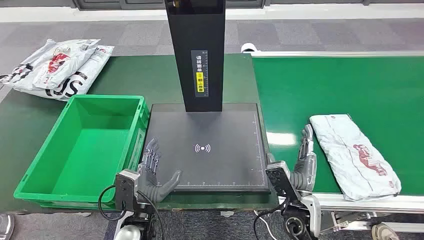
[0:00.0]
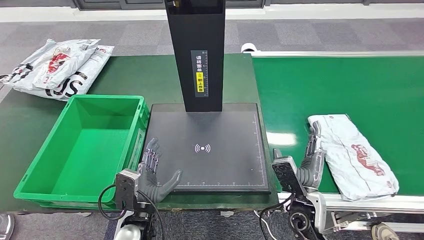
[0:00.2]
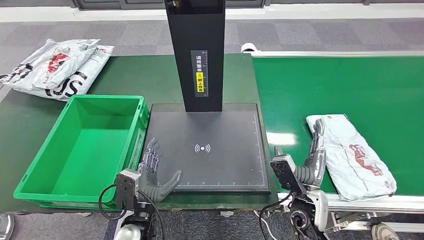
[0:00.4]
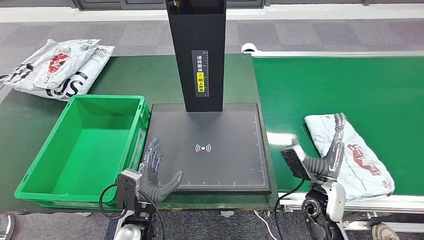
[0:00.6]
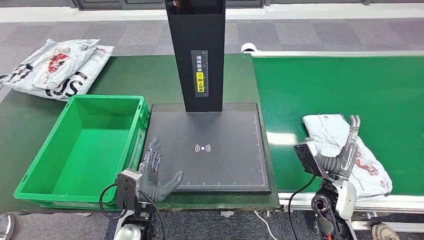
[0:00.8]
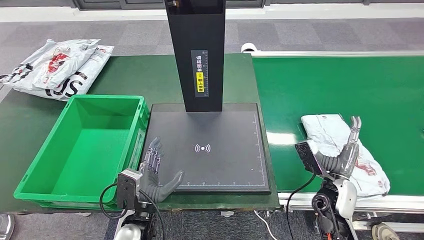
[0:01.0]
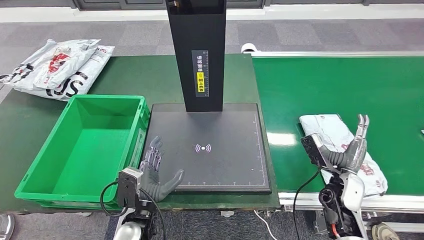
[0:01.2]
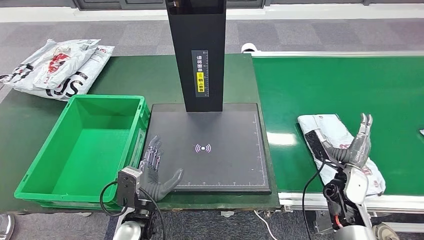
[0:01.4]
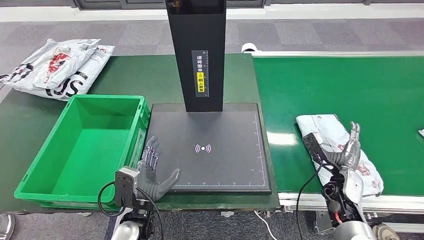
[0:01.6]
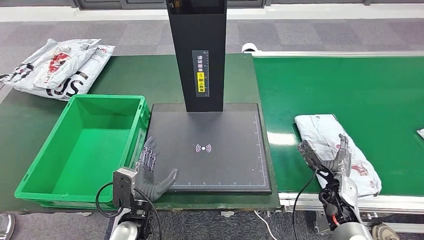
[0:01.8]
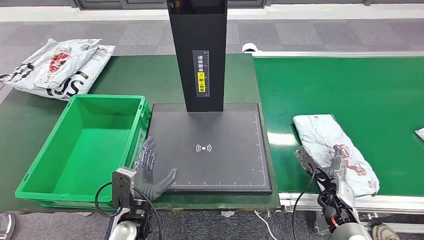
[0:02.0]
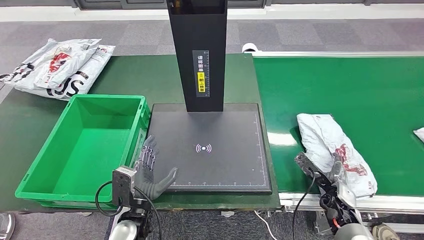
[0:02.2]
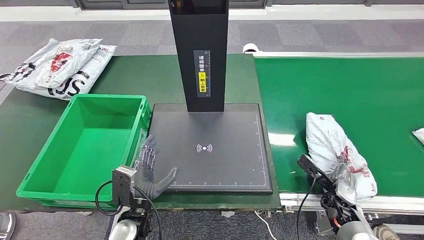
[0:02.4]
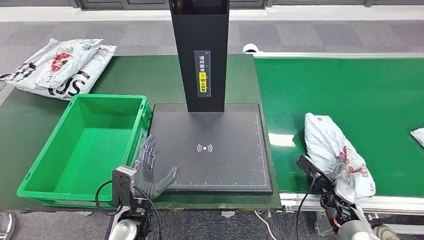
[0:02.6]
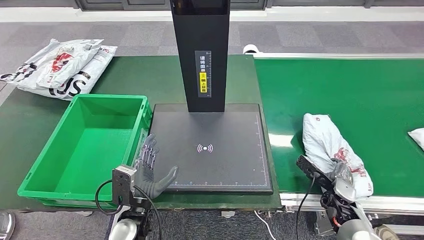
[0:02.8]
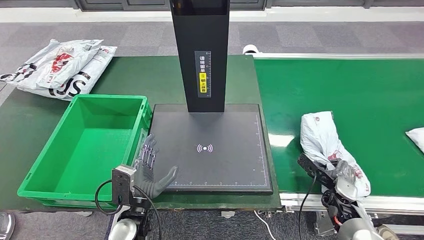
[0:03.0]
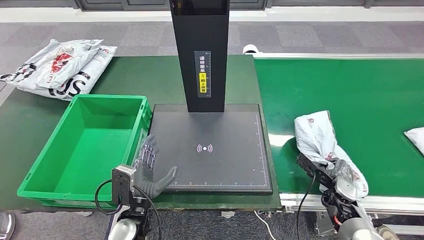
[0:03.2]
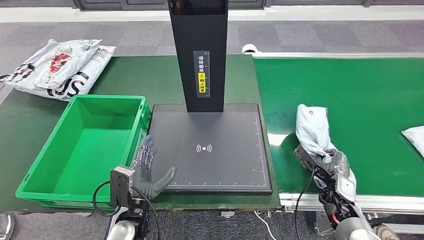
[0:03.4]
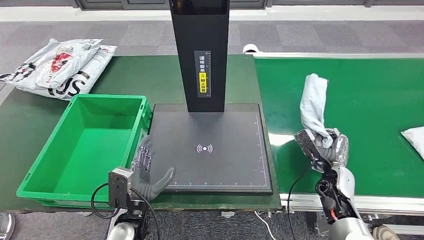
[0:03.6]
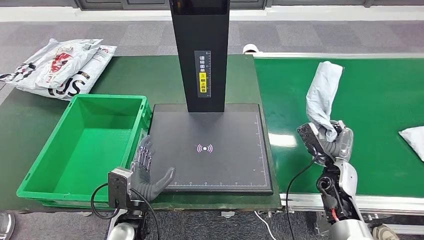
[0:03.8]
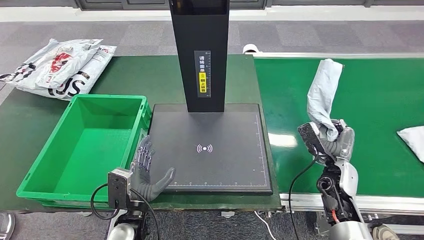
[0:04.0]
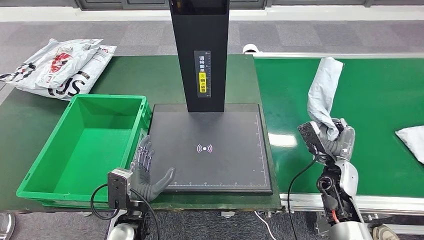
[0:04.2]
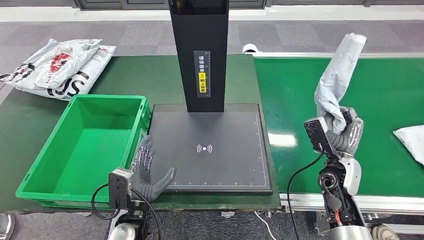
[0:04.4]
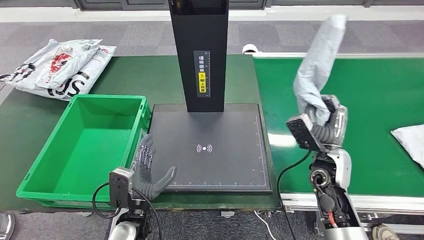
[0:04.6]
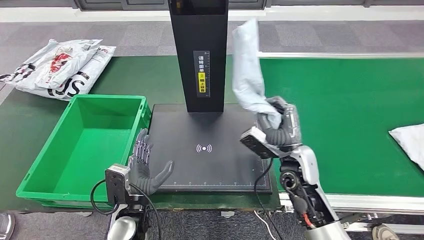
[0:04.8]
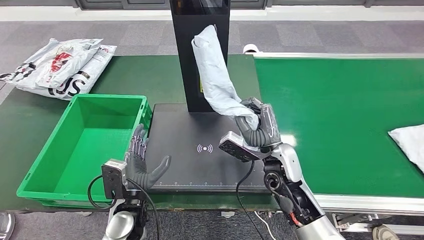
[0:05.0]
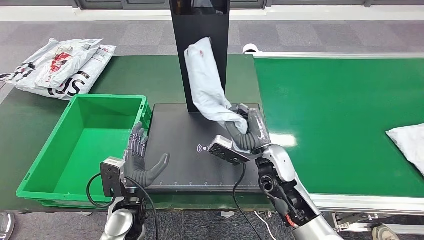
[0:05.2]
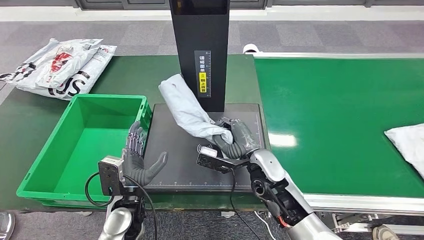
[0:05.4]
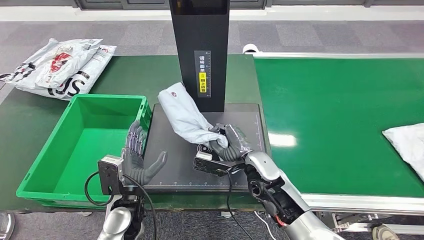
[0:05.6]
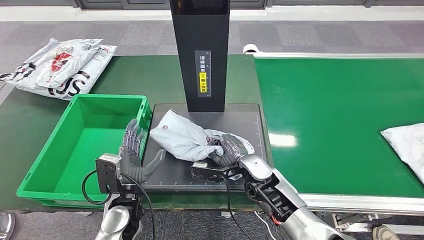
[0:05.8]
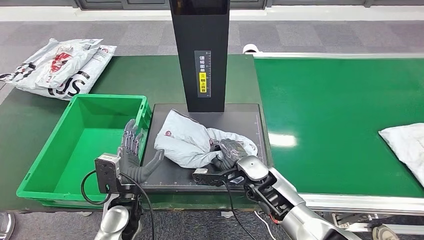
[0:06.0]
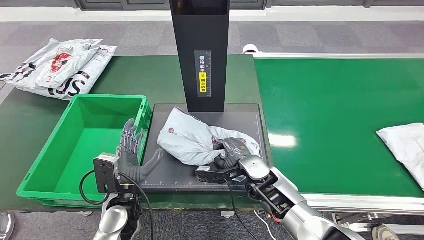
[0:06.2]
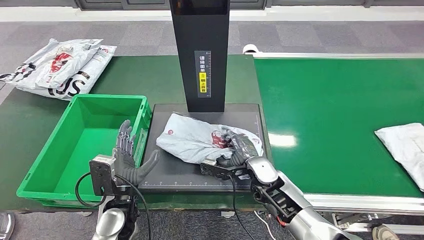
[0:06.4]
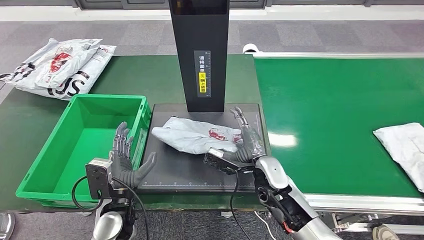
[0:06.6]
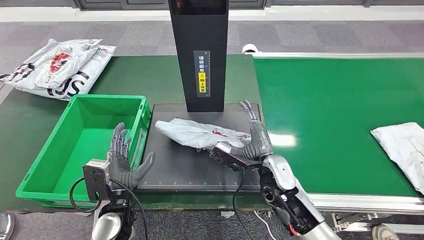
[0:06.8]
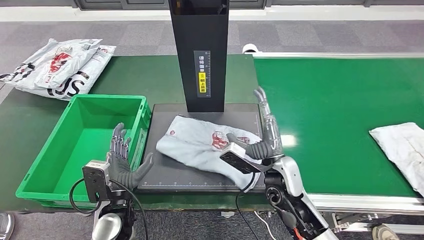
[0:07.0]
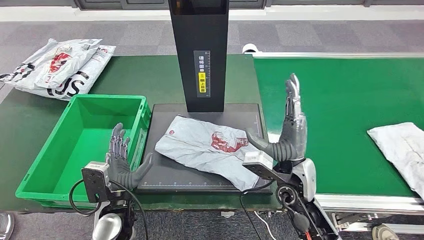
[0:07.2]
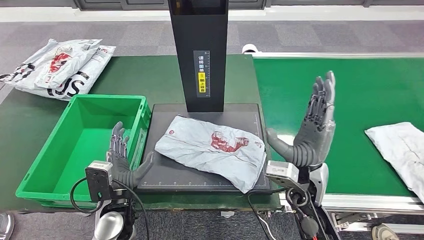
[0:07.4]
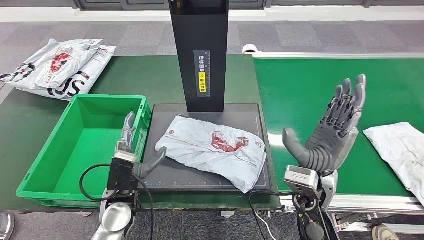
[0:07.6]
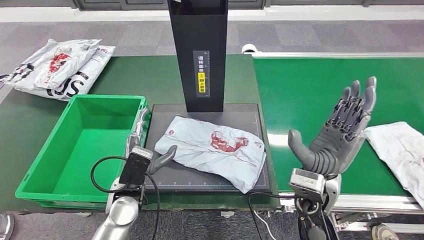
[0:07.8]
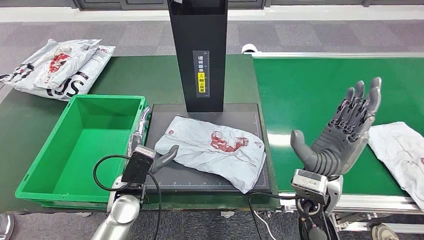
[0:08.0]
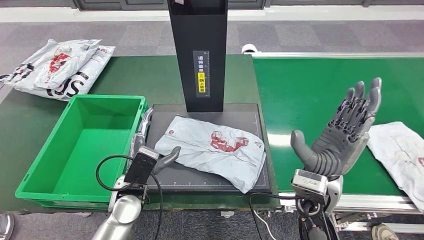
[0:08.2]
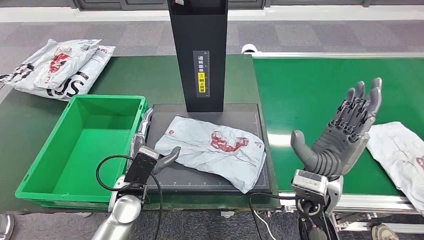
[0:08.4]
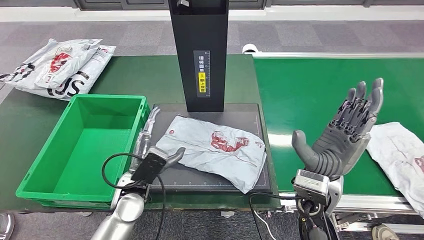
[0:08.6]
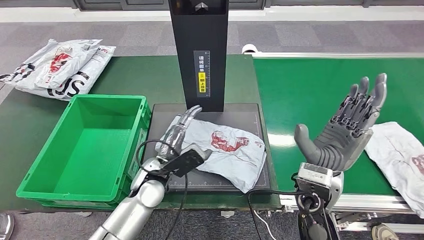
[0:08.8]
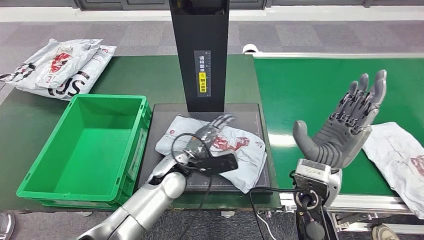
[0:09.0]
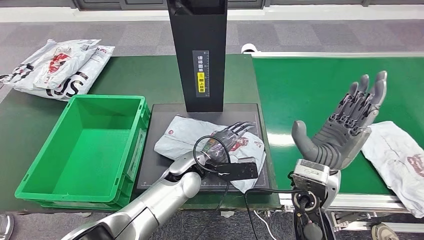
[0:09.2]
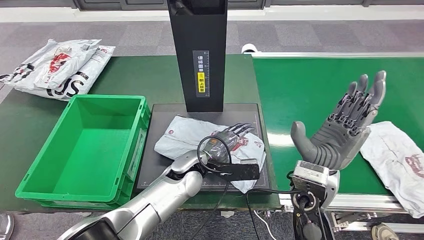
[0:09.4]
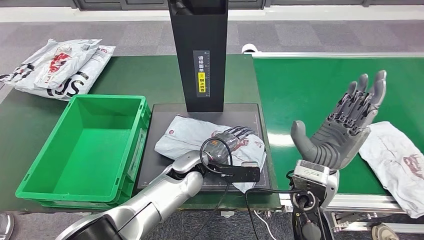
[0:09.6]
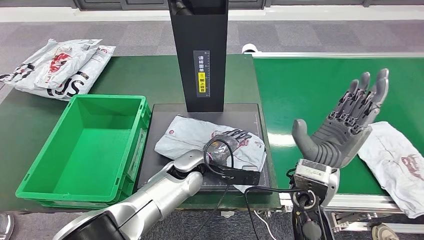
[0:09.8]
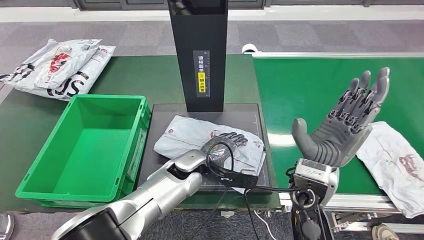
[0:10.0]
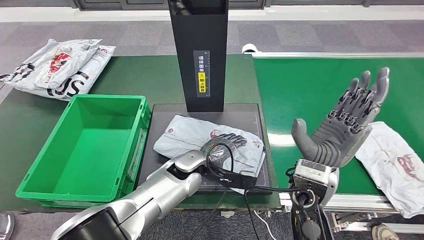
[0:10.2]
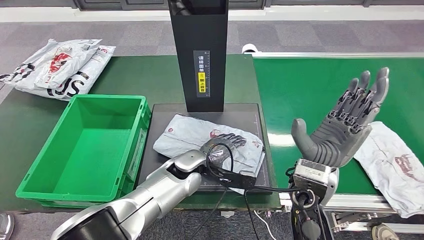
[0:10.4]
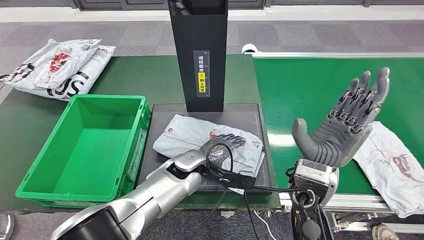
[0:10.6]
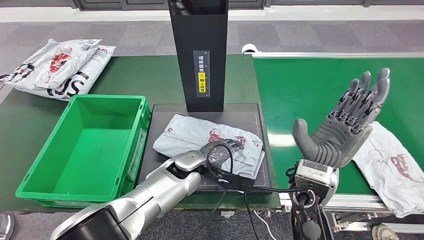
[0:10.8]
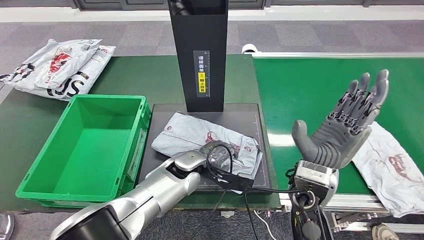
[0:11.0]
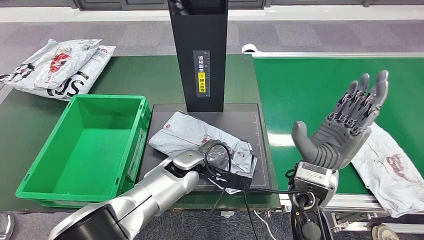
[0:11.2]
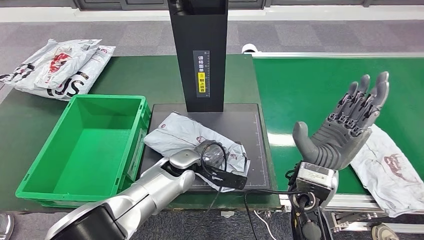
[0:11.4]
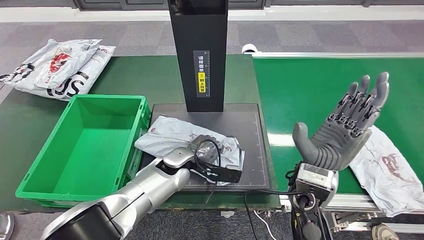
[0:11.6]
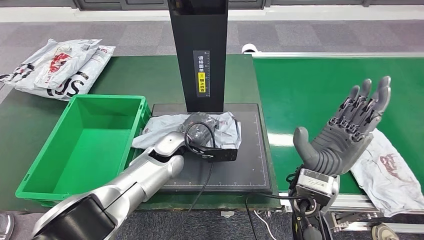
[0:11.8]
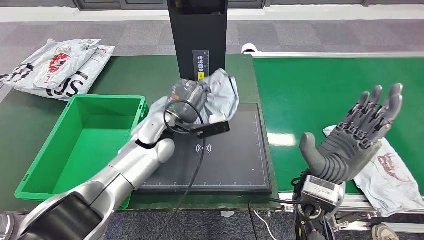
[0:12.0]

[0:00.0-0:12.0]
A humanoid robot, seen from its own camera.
Step, 0:00.0 to 0:03.8: Take the parcel off the conveyor belt.
Step, 0:04.0 to 0:07.4: Place the parcel onto the inbound machine.
0:03.0 to 0:04.4: The right hand is displaced upward by some 10 cm.
0:06.0 to 0:07.6: The right hand shifts approximately 15 cm upward, to the right and backward.
0:07.6 to 0:09.0: The left hand travels to the right and forward by approximately 15 cm.

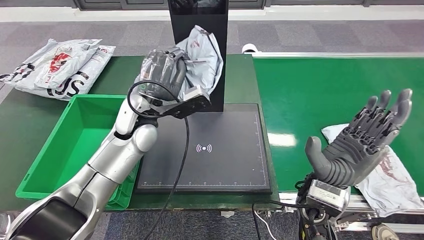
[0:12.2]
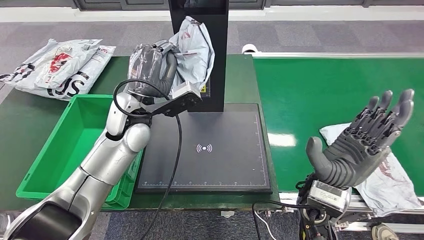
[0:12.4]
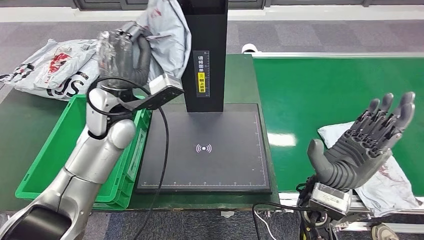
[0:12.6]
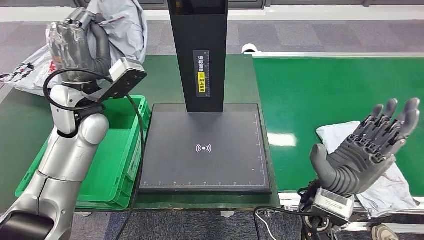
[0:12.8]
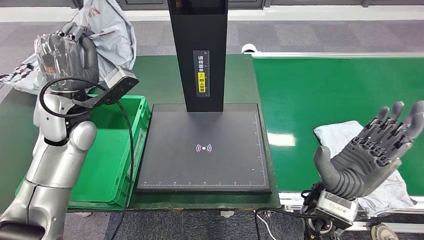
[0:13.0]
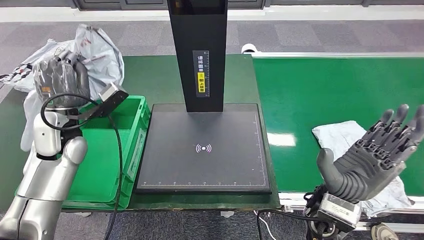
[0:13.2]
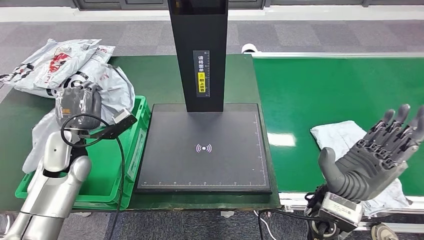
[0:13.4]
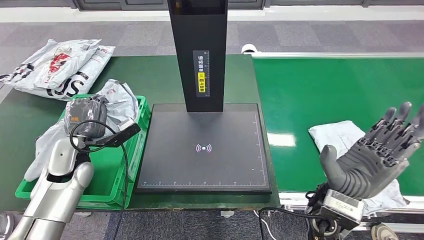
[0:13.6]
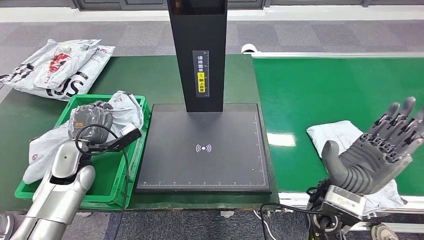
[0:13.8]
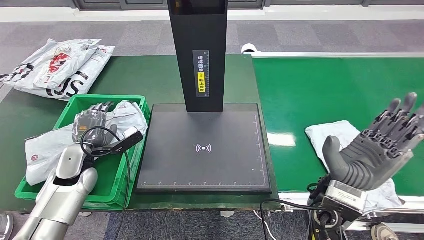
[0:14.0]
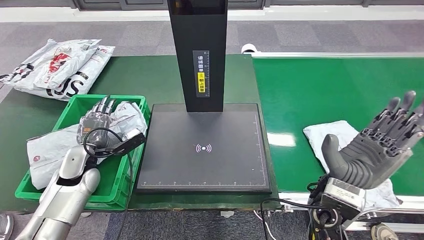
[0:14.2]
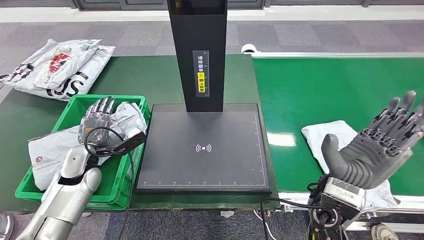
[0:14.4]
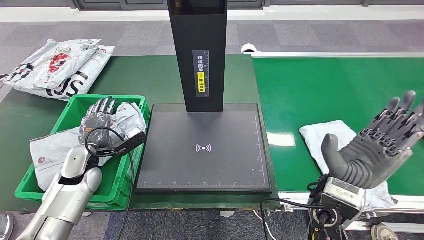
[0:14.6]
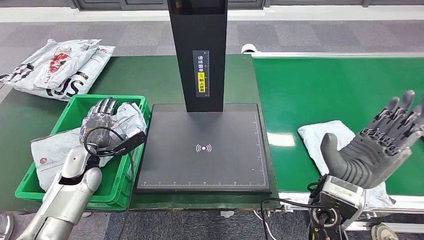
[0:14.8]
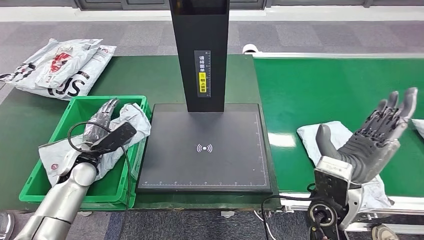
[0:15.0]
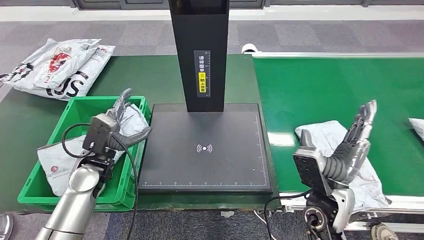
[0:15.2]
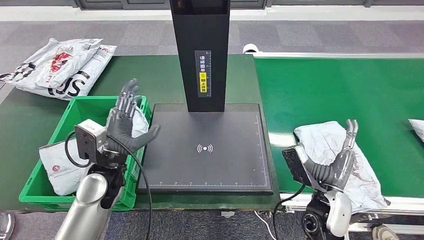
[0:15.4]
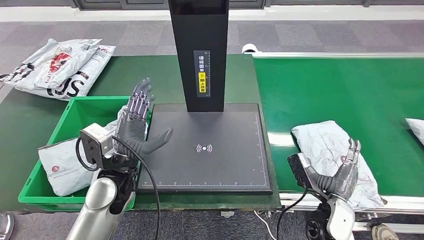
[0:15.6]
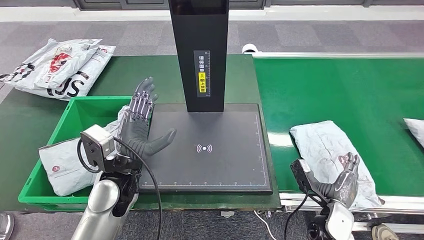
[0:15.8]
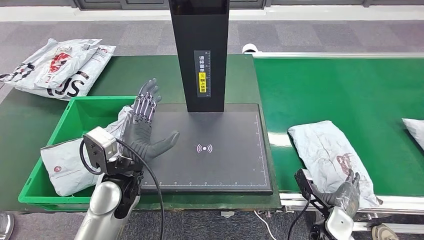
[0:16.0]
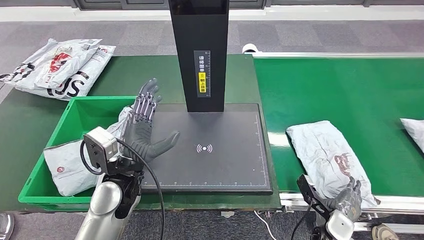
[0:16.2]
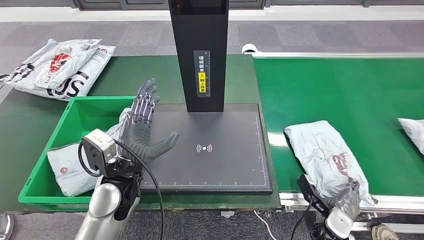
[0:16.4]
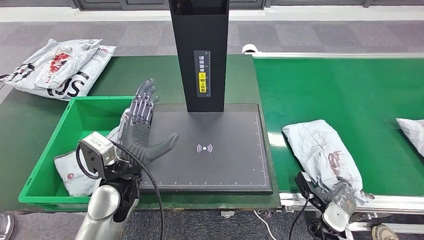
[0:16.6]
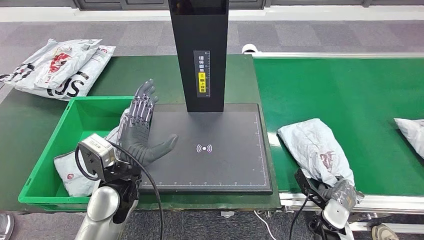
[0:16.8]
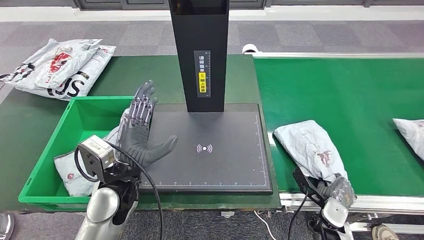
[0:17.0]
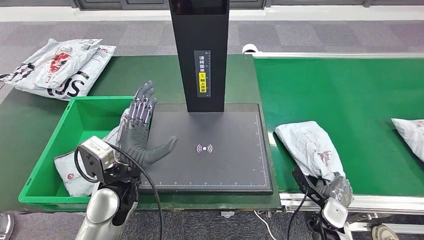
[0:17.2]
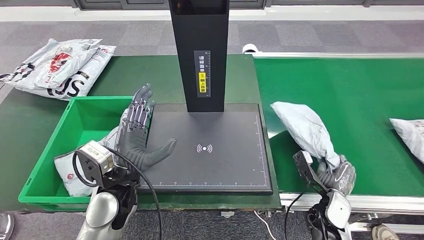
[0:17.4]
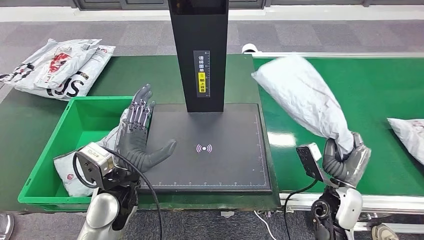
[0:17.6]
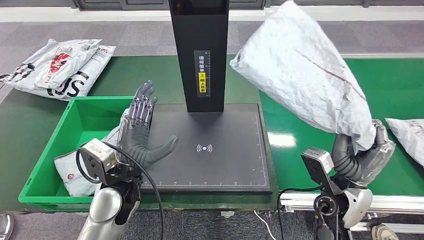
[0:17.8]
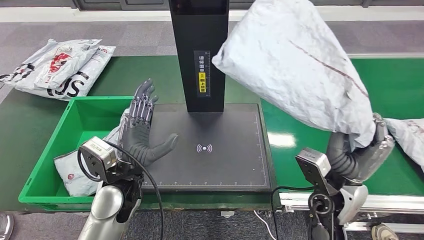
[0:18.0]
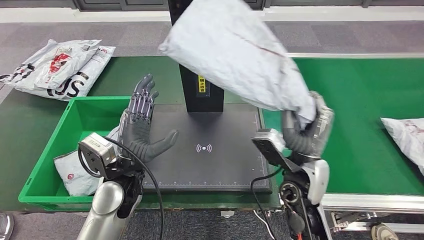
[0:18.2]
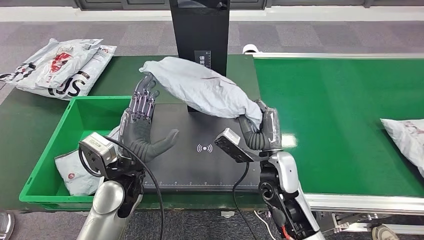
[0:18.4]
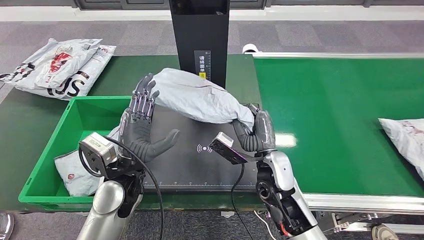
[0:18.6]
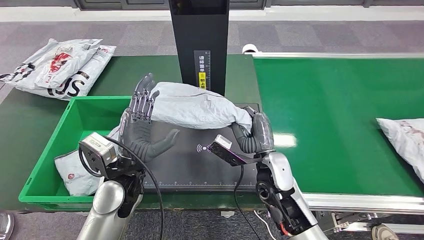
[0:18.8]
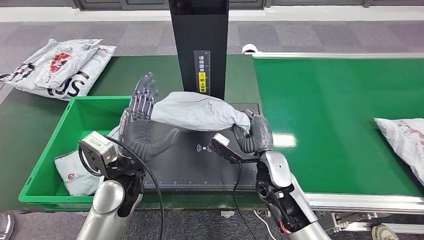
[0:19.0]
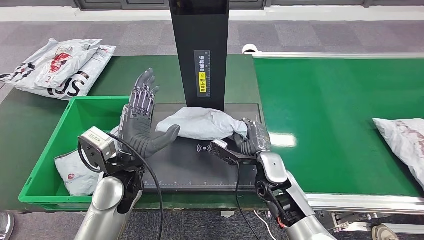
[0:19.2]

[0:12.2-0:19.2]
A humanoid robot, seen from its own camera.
Step, 0:13.2 to 0:16.0: Put the parcel inside the courier box.
Step, 0:16.2 to 0:18.2: Pick up the parcel from the conveyor belt.
